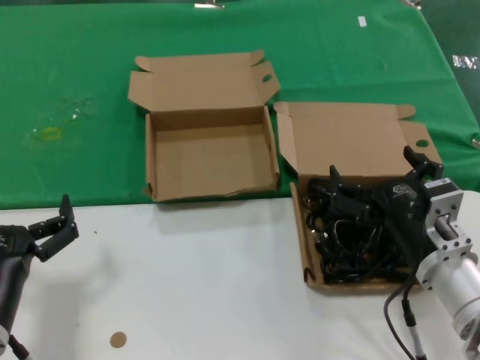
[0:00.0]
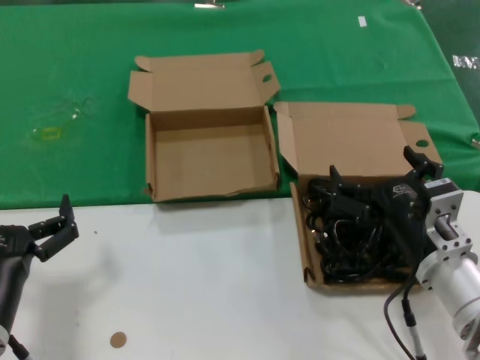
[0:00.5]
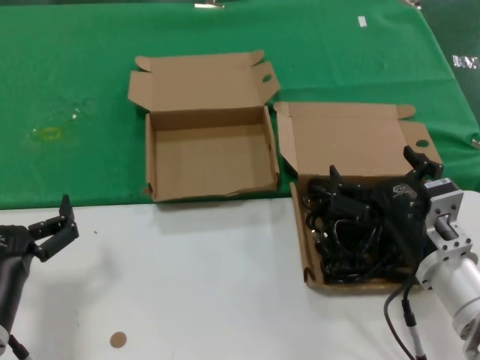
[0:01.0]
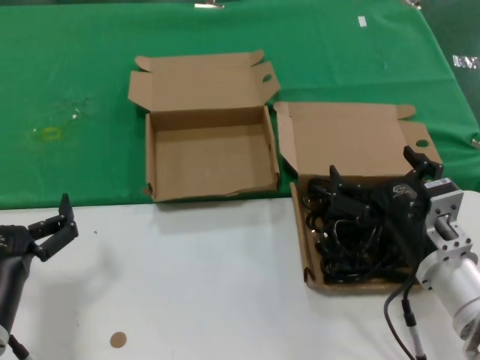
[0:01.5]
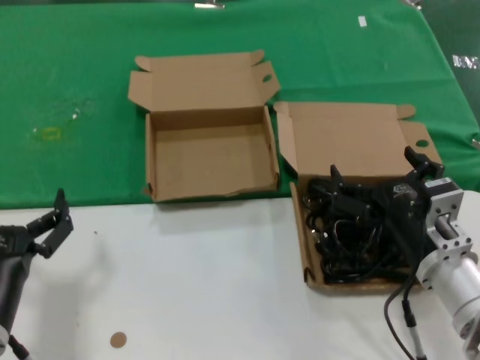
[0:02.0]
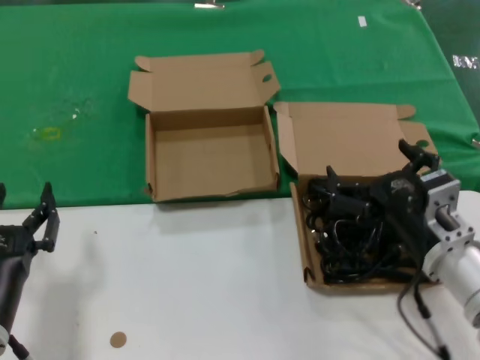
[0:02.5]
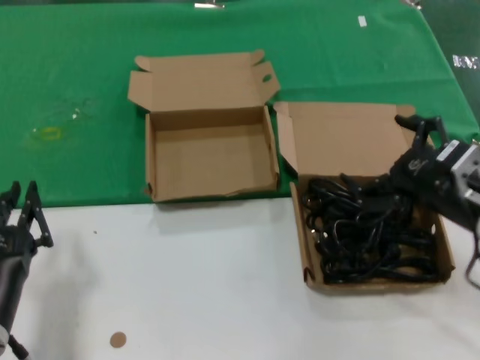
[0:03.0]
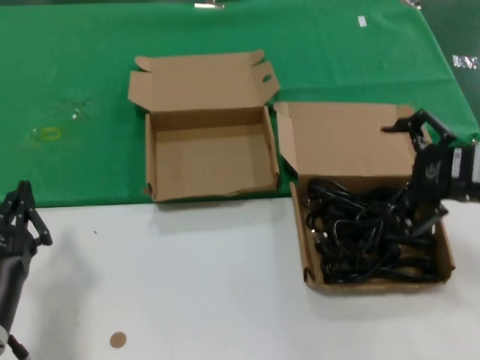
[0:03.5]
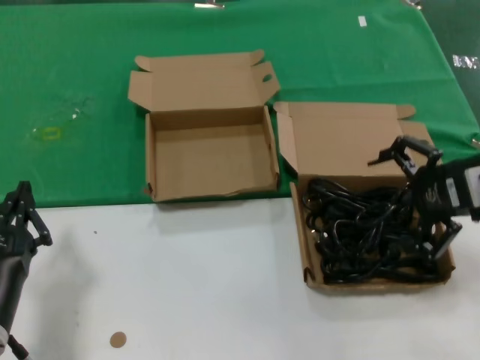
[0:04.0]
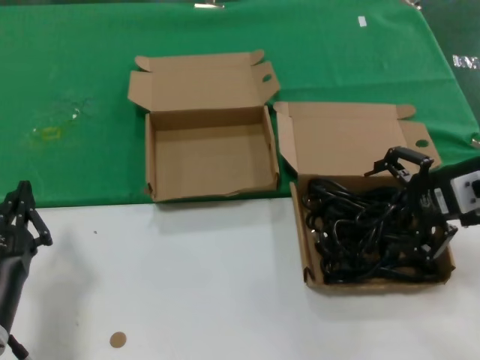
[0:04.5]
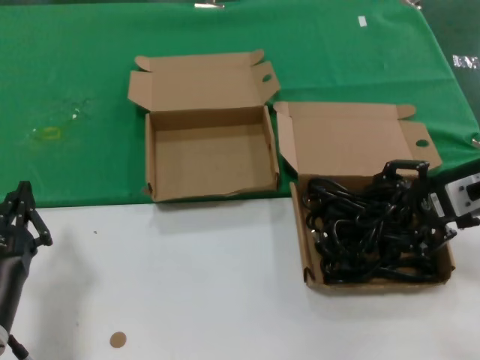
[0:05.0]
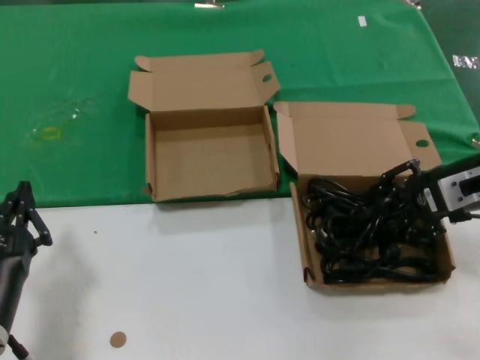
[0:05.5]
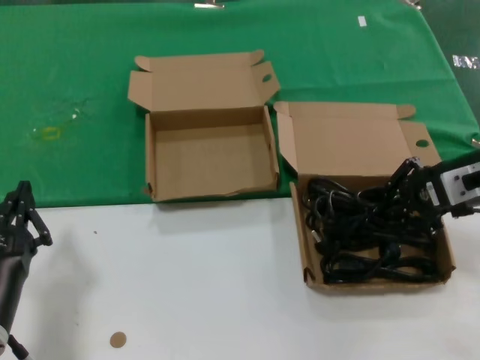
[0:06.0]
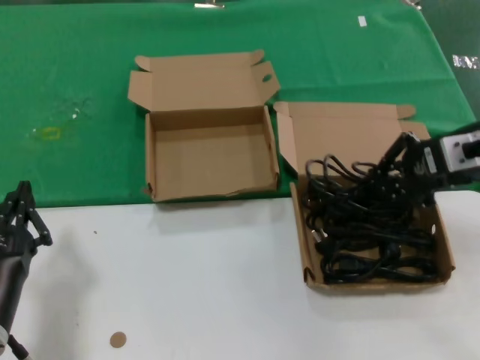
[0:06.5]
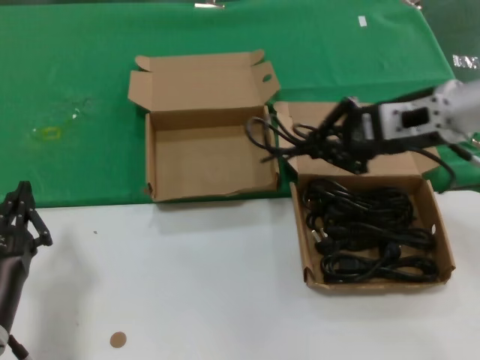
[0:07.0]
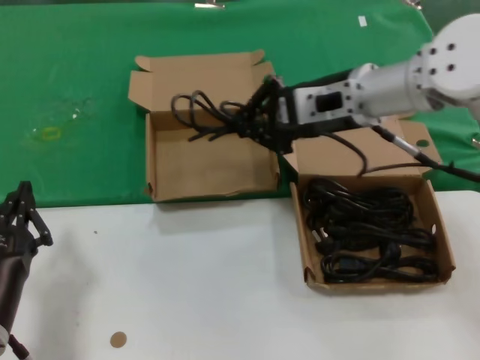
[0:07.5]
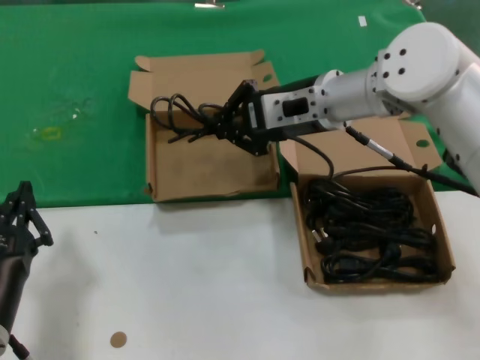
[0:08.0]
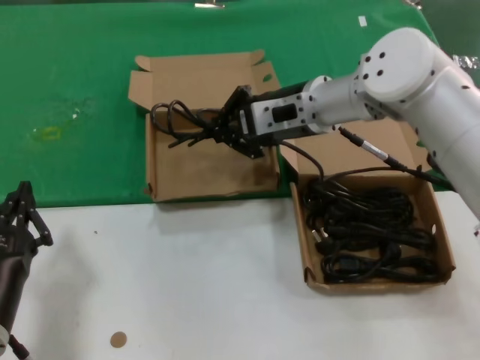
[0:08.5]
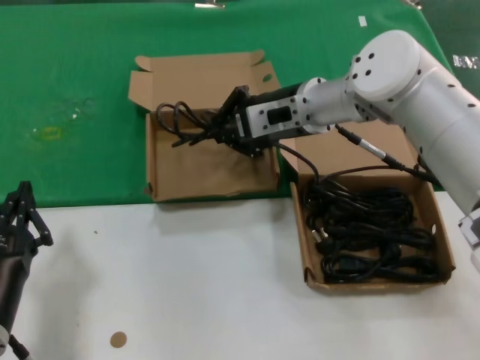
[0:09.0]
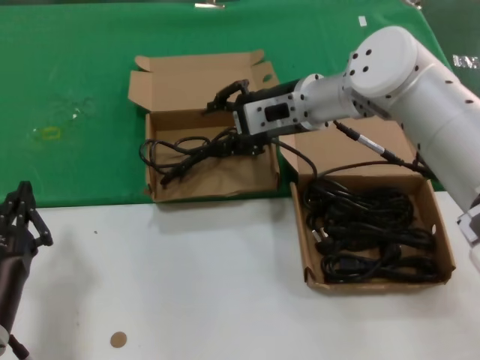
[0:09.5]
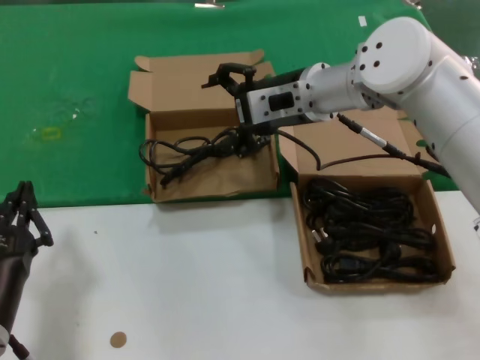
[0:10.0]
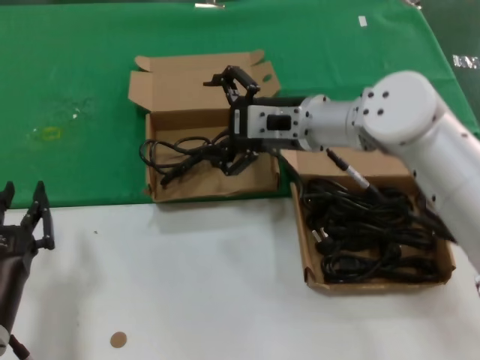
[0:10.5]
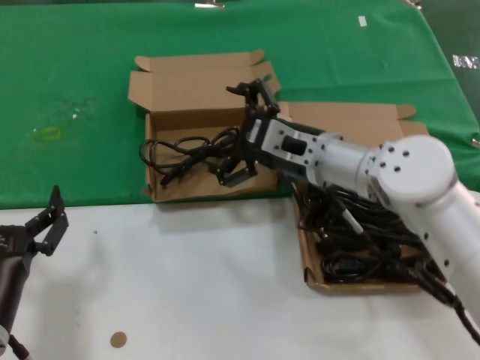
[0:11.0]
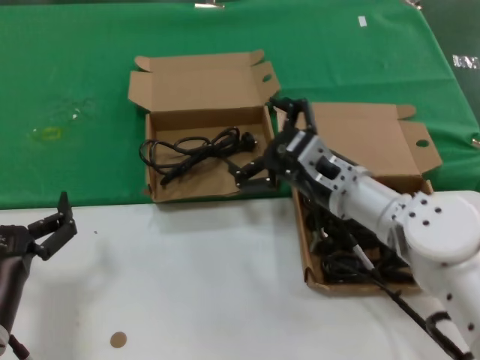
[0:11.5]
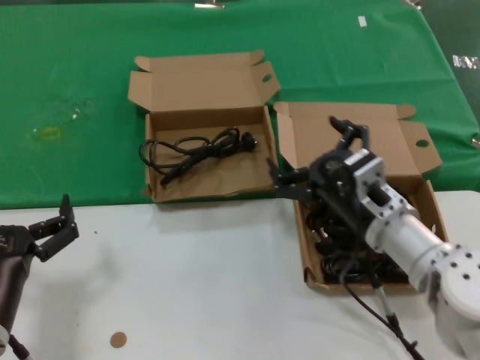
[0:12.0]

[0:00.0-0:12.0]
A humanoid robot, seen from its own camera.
Task of the whole recording: take the parts from the box containing them and put them into an empty box.
Step, 0:00.0 to 0:05.5: Grasp the data cable.
Step, 0:06.0 to 0:09.0: Place the data cable in the another box.
0:00.0 to 0:02.0: Both hands stay put.
0:02.0 to 0:04.0: The right hand moves upward and to the right, about 20 cm.
0:04.0 to 0:06.0: The right hand shifts by roughly 5 cm.
0:06.0 to 0:08.0: The right hand moves to the left and forward, roughly 20 cm.
0:08.0 to 0:10.0: The hands make only small movements.
0:10.0 to 0:12.0: The right hand goes some 25 cm downward and backward.

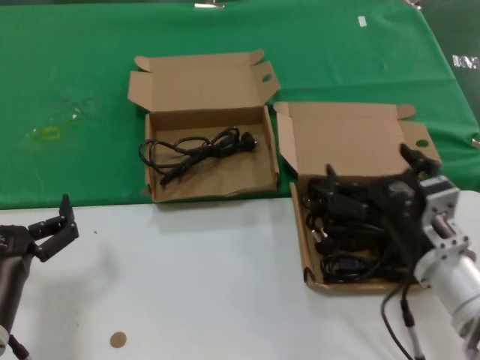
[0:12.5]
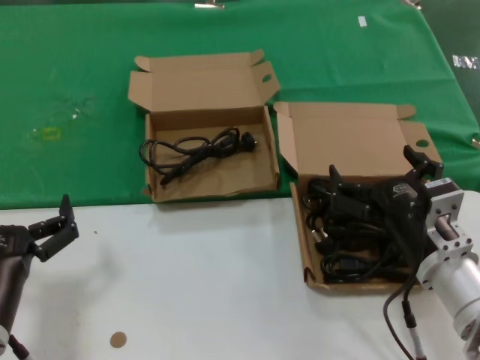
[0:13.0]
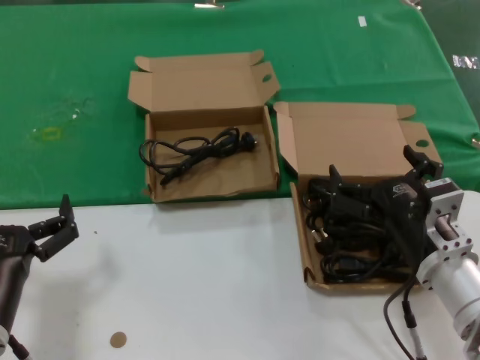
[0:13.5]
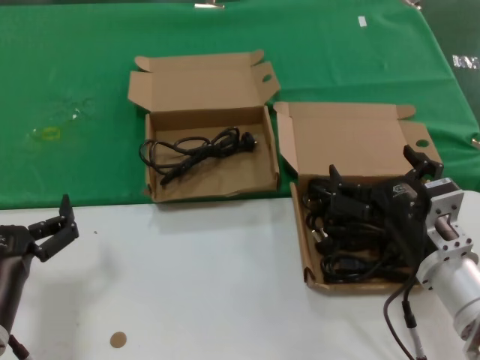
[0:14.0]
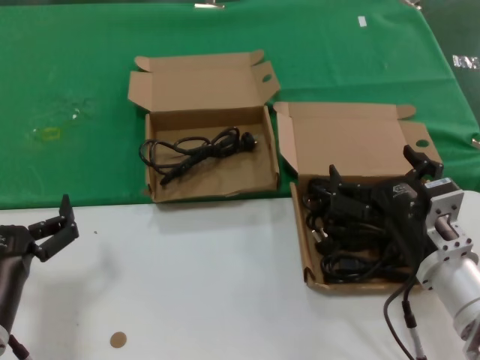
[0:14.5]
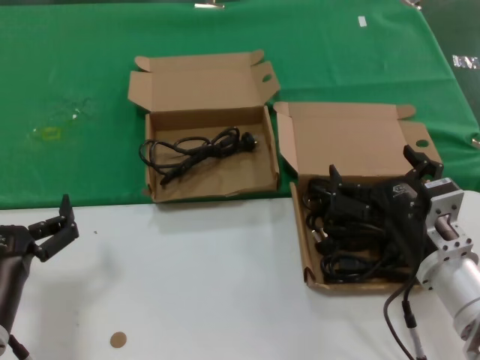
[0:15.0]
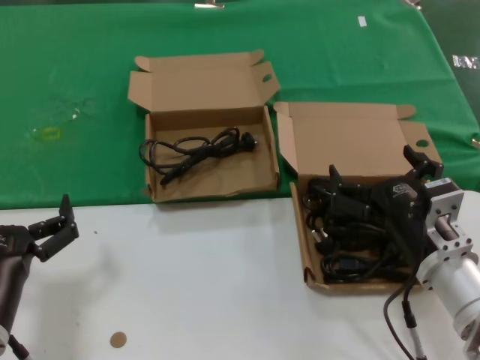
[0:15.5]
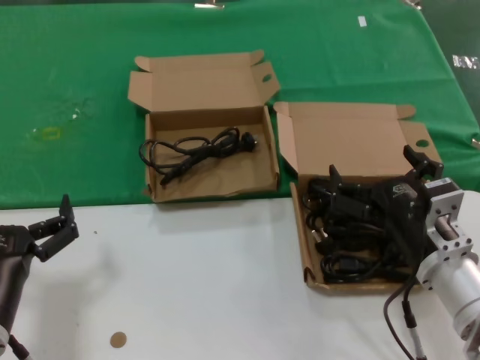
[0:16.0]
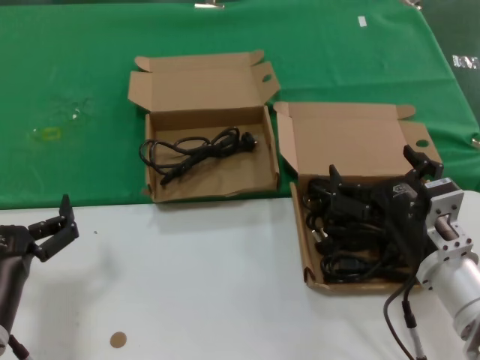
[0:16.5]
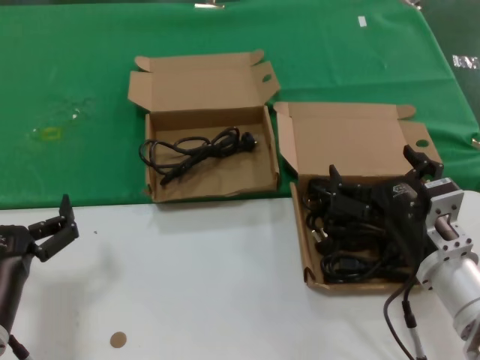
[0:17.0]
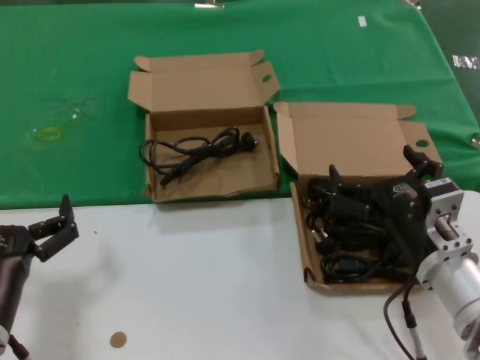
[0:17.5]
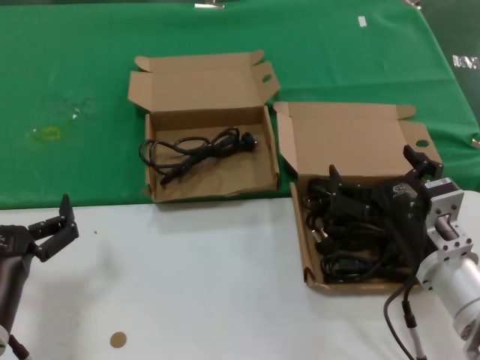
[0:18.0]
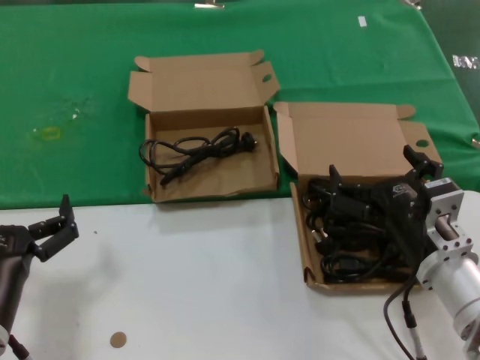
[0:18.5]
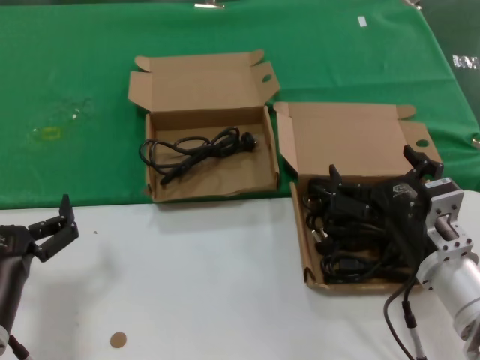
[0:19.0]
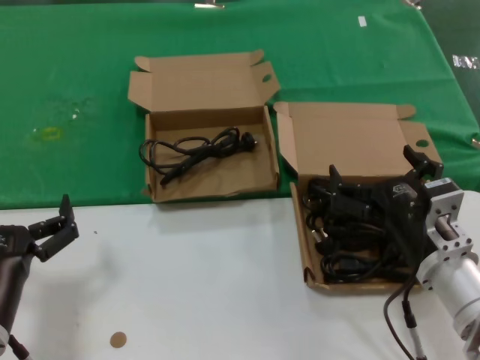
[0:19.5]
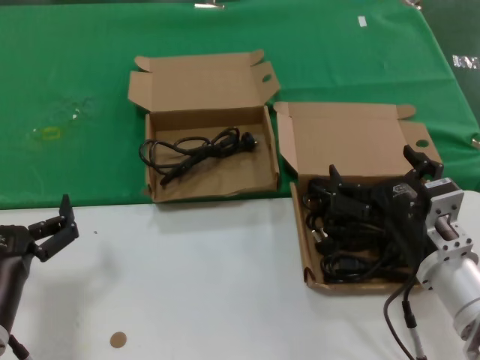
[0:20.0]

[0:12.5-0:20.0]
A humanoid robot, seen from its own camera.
Task of the whole recording: take the parts from the box containing them and put them into an empty box.
0:12.5 to 0:20.0: Both hands stay put.

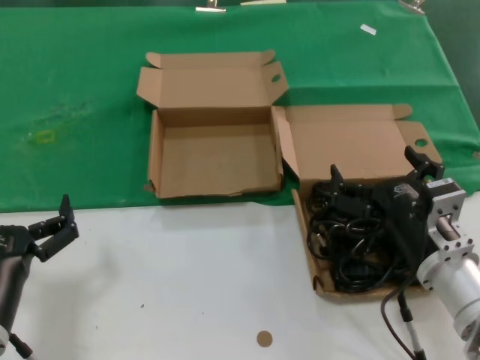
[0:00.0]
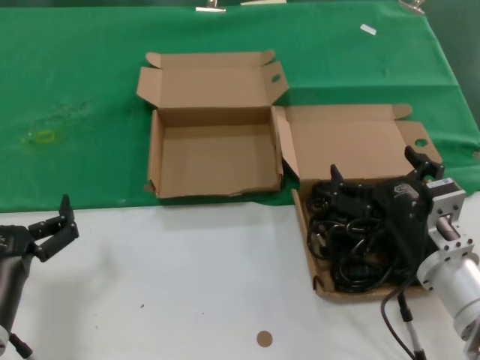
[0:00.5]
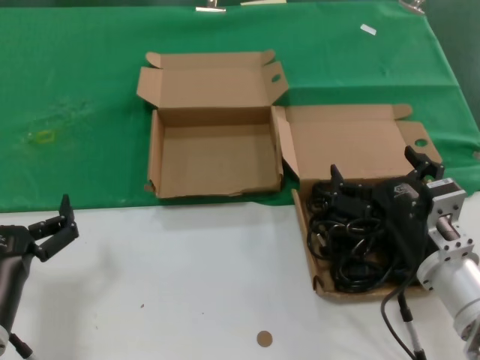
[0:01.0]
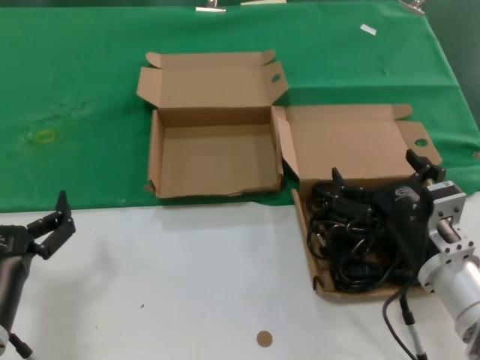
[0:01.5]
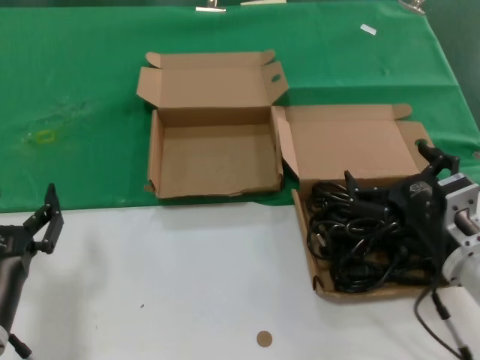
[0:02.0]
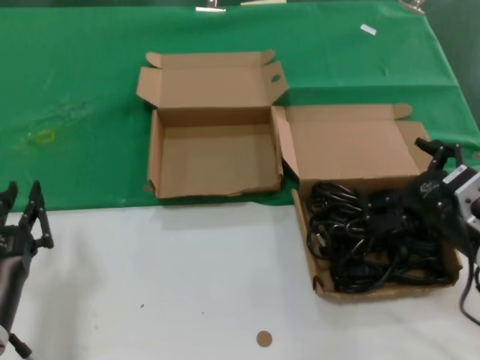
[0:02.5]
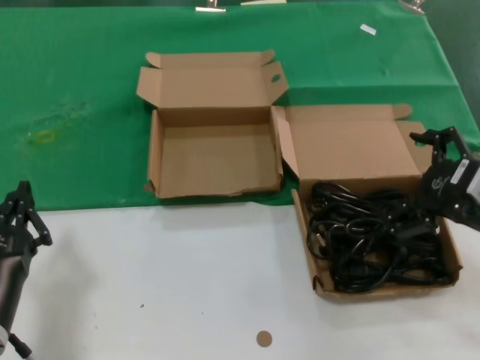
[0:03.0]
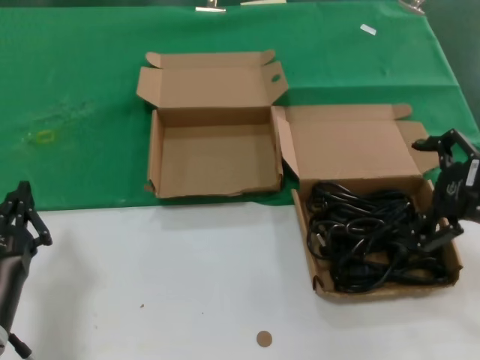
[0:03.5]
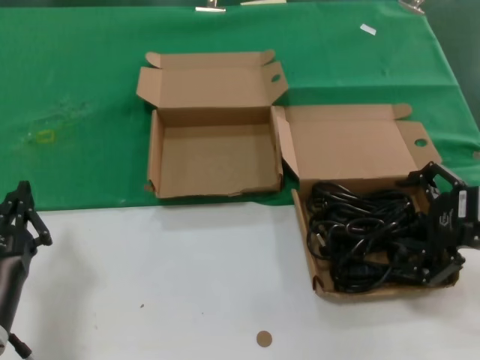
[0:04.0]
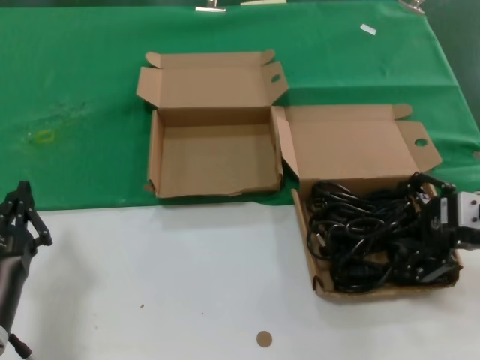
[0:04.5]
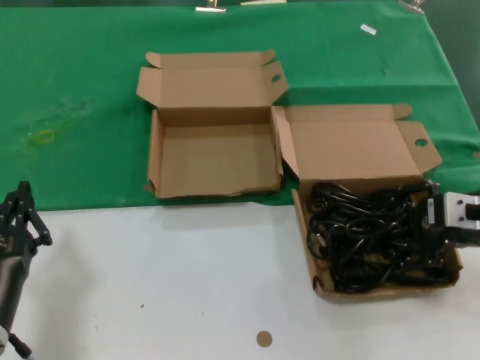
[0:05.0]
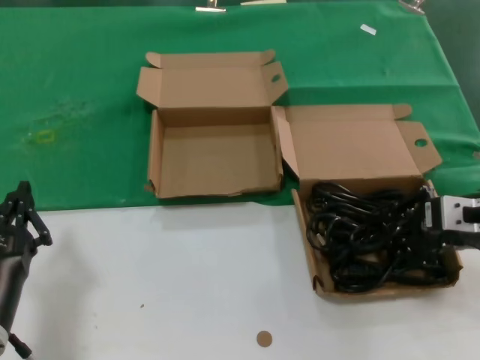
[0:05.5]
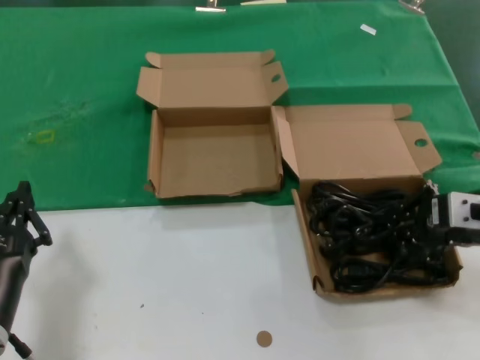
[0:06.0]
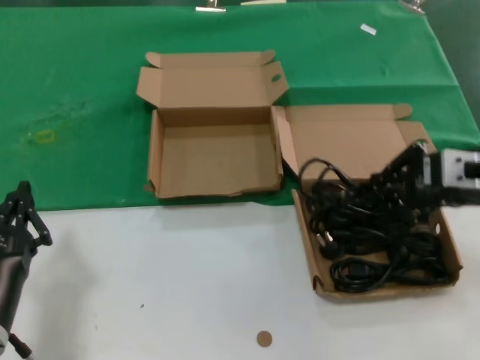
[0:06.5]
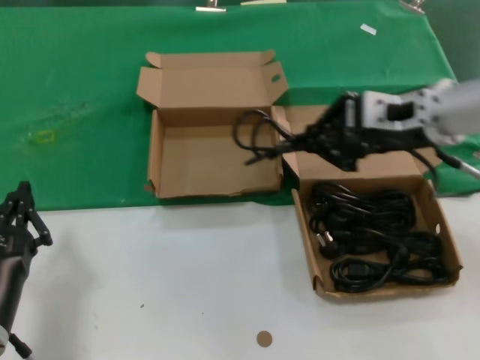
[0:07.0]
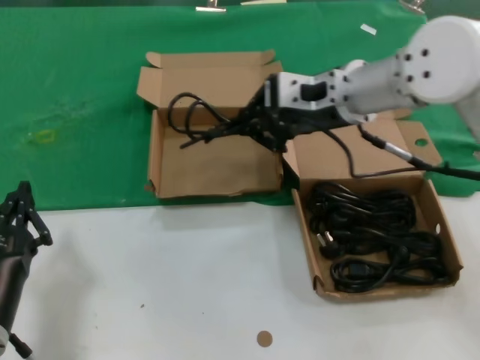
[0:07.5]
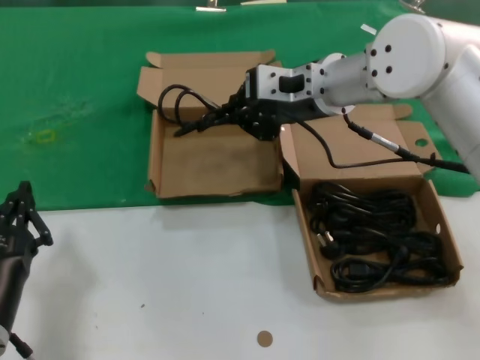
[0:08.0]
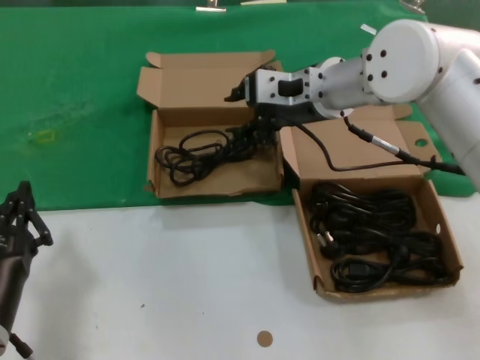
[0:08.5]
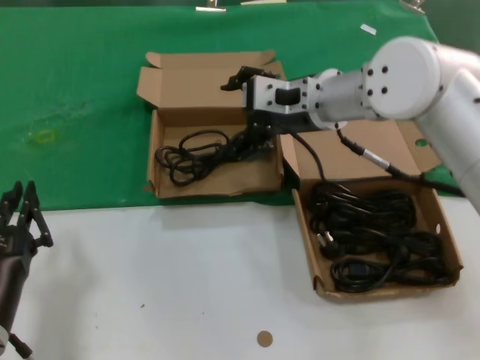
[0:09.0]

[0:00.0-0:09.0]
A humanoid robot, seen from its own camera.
Task of the whole recording: take the parts from the box containing them and put them into an empty box.
Step, 0:00.0 to 0:05.5: Grasp the data cable.
Step, 0:06.0 to 0:08.0: Place the data cable in the another box.
0:00.0 to 0:02.0: The hands move only a little.
0:02.0 to 0:04.5: The right hand travels upward and to the right by about 15 cm.
0:04.5 to 0:07.0: The right hand moves to the left, upward and forward, some 15 cm.
0:07.0 to 0:09.0: The right hand travels to the left and forward by about 15 cm.
